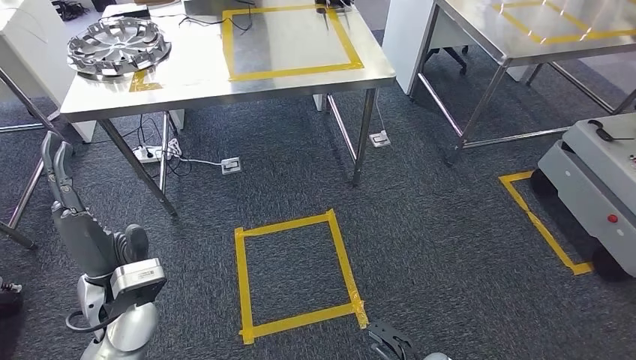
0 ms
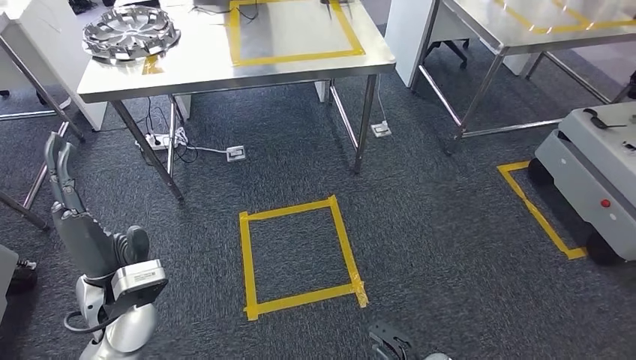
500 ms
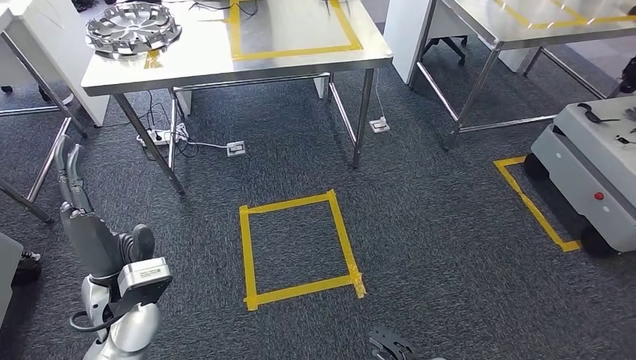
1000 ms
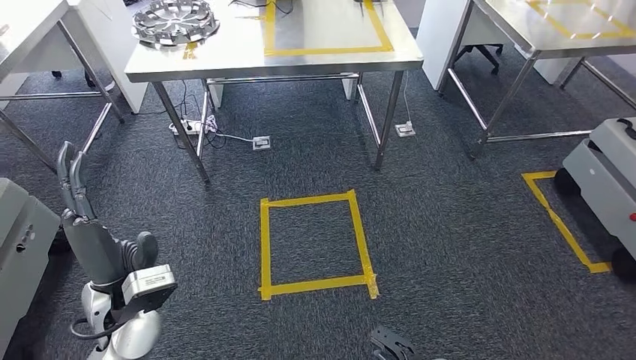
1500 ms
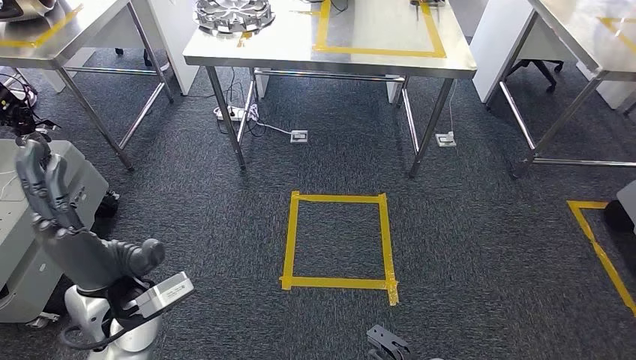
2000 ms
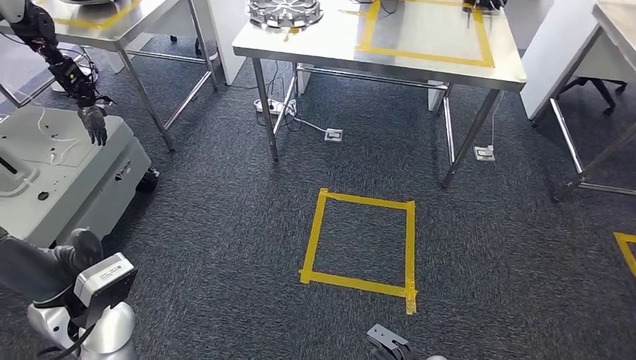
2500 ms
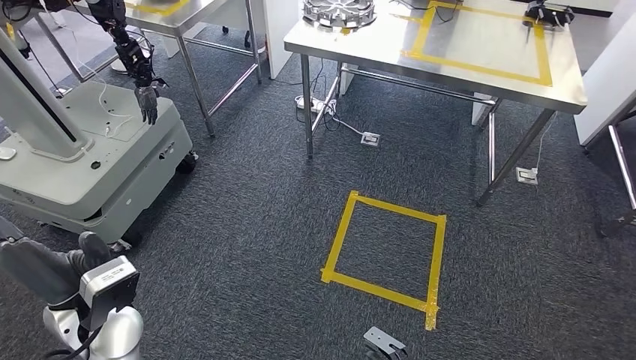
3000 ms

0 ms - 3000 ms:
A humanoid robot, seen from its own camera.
Step, 0 ms - 3000 ms: Move to the initial position of the workbench.
